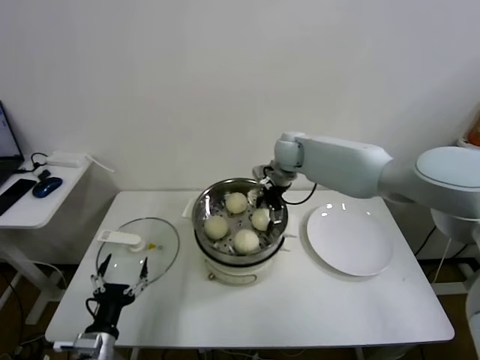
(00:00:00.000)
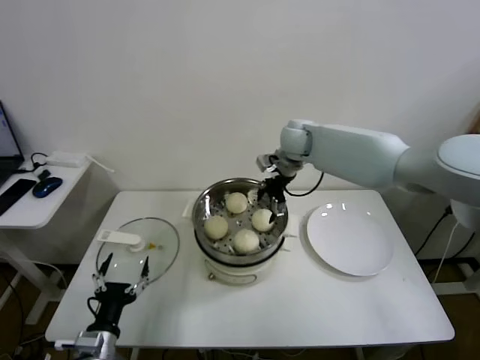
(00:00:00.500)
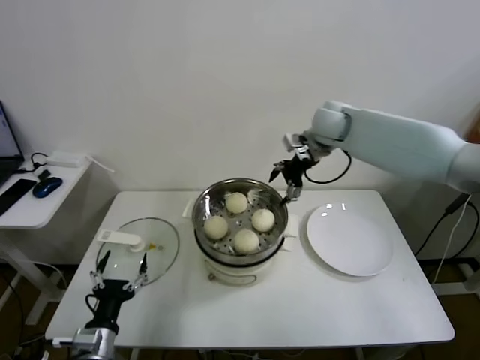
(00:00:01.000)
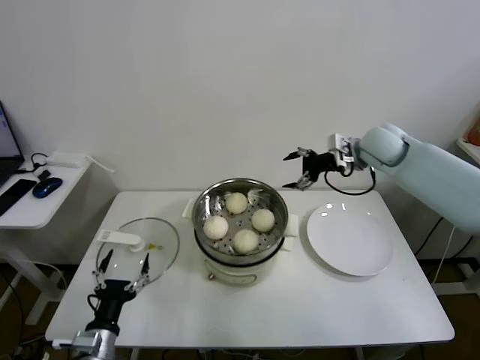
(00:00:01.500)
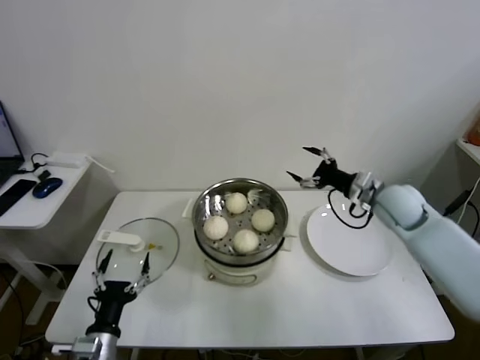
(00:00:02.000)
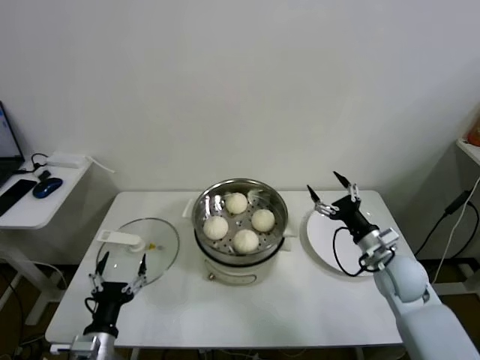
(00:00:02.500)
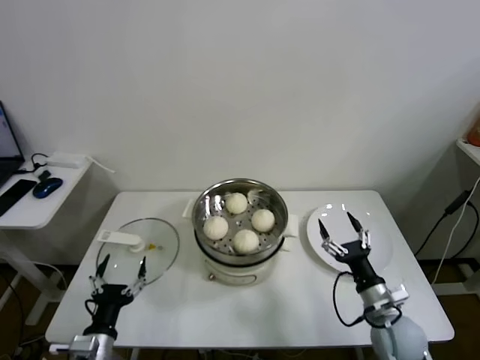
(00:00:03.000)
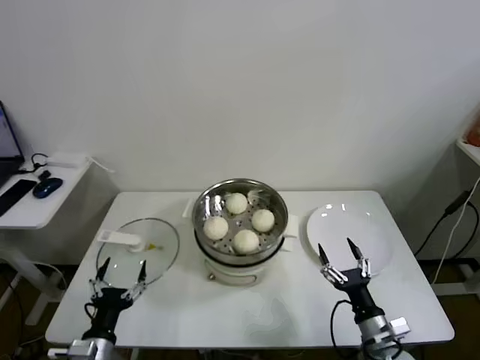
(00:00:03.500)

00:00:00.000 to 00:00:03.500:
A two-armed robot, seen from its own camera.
Task of the whole recording: take steamed baozi put them in steamer.
00:00:00.000 to 00:00:02.000: The right gripper travels to the right and backward by approximately 25 cm.
00:00:02.000 to 00:00:03.500: The right gripper travels backward and downward by roughly 35 cm.

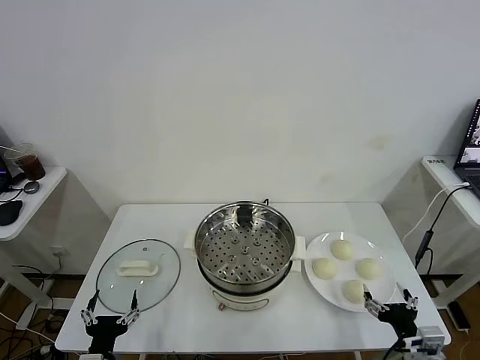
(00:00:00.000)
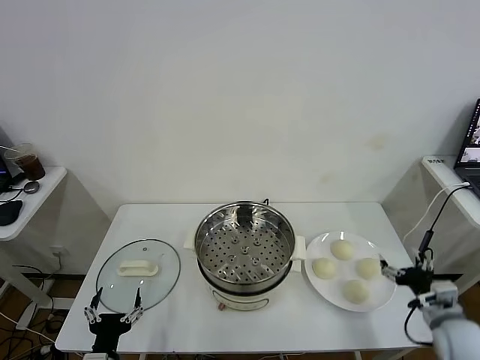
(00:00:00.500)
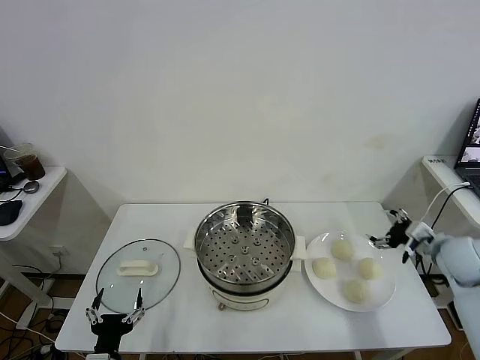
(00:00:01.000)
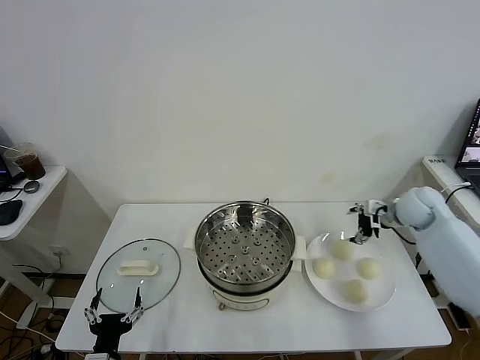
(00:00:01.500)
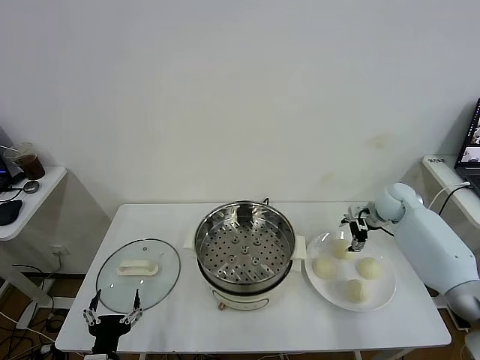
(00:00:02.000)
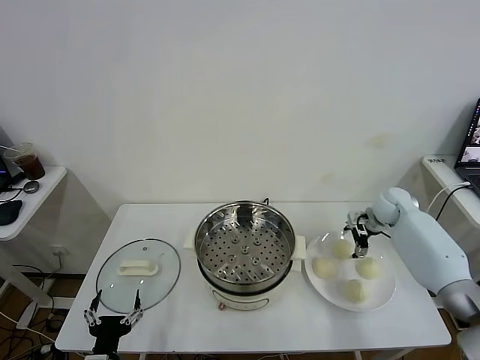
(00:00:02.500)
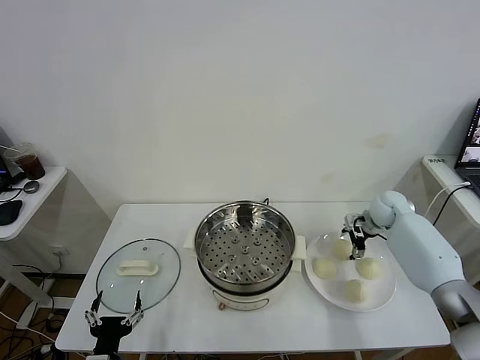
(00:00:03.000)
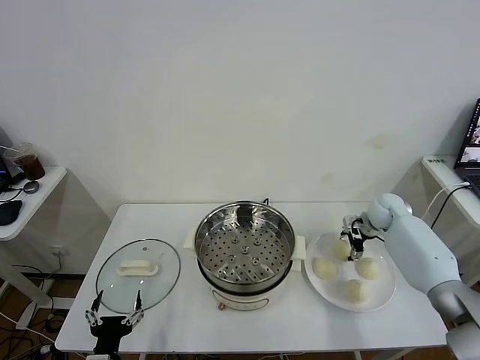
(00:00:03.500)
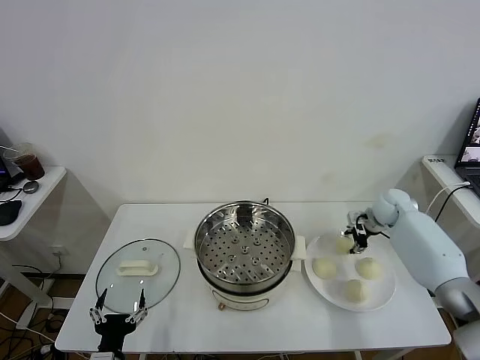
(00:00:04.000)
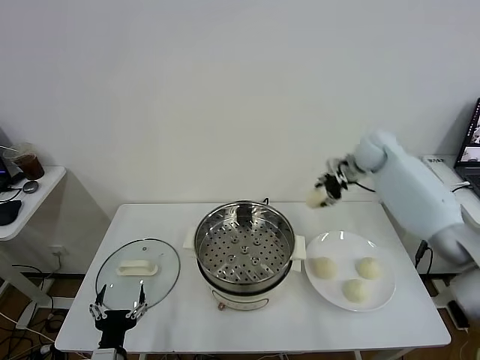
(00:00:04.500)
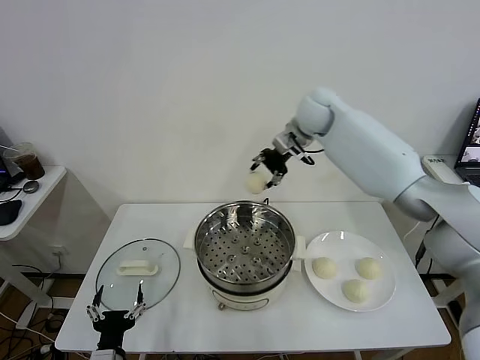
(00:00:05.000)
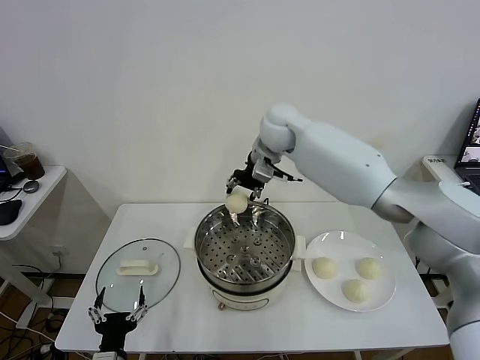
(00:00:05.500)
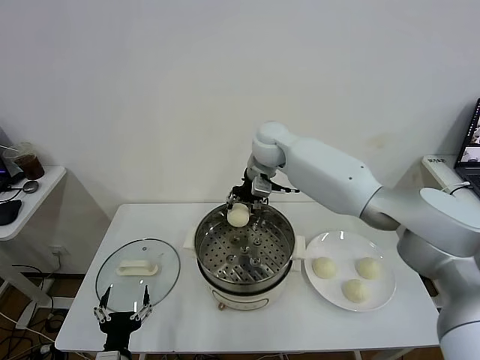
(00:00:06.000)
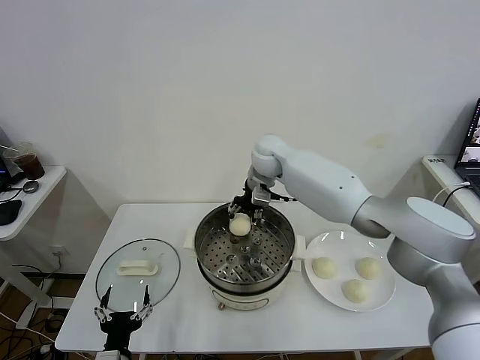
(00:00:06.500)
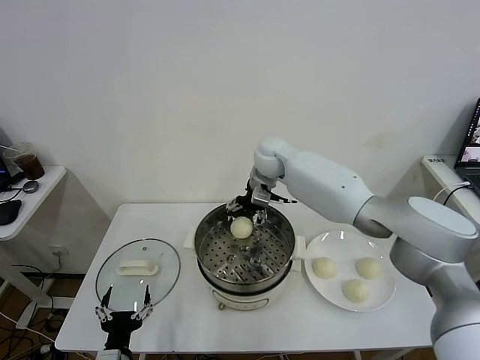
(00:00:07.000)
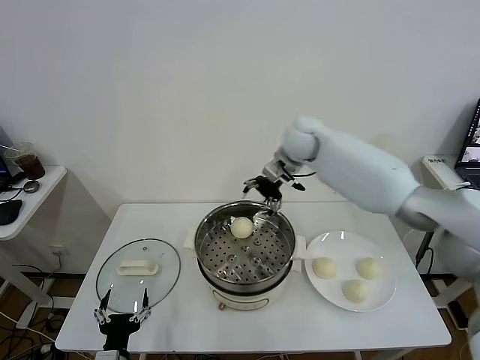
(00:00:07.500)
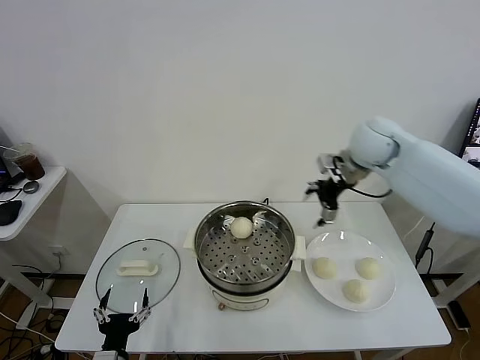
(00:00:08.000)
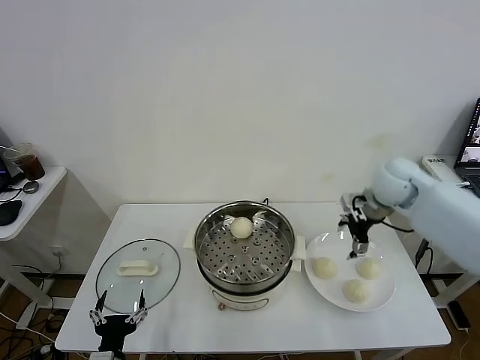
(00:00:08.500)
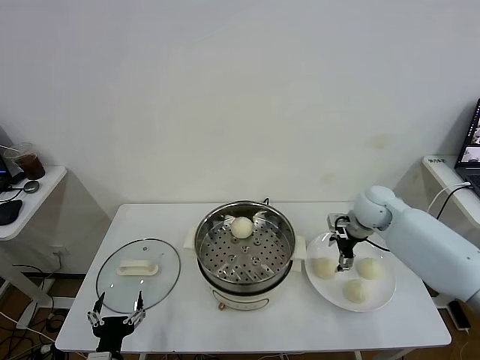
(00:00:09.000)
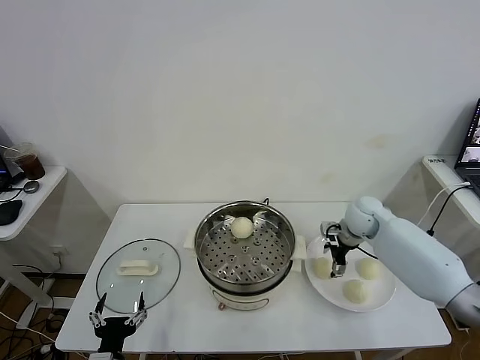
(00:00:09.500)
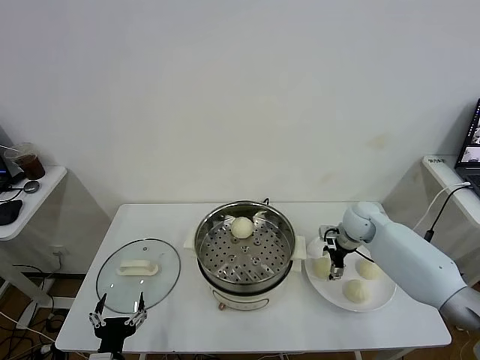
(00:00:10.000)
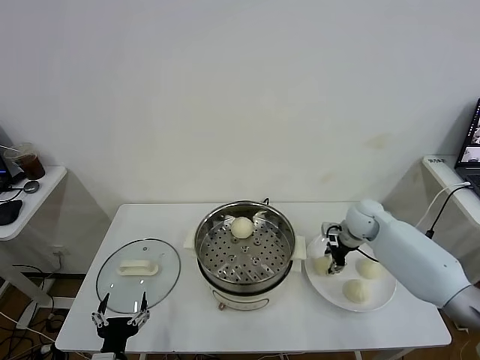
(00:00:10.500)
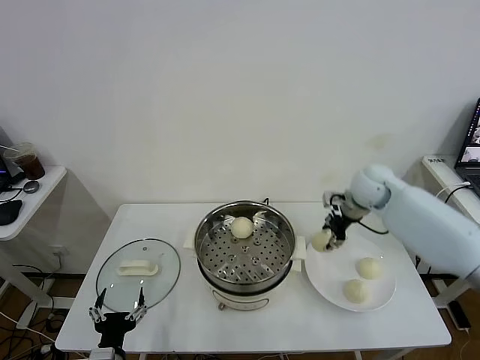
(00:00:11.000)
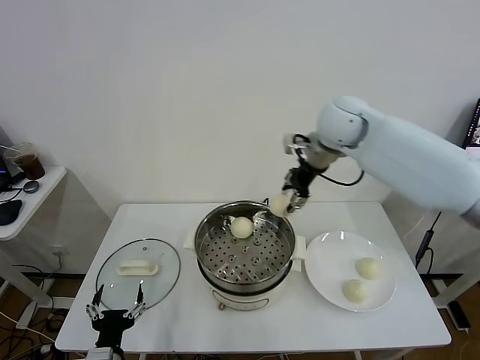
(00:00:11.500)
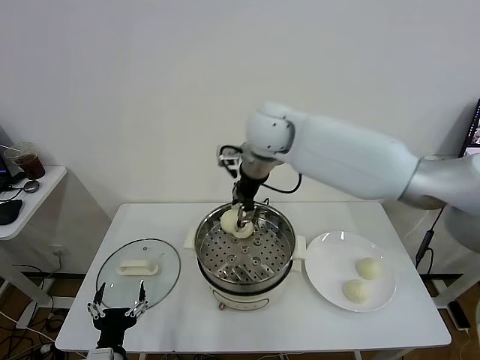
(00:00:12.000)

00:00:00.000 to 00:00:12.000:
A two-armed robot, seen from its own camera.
Task of the whole recording: take steamed baozi put them in steamer.
Step, 00:00:00.000 to 00:00:03.500: Grasp the baozi in the plate with right gripper.
Step, 00:00:04.000 to 00:00:07.000: Place the baozi on the steamer with right gripper.
Step, 00:00:07.500 to 00:00:10.000: Grasp the baozi in the plate with right gripper.
00:00:02.000 to 00:00:04.000: The right gripper closes its fingers.
00:00:04.000 to 00:00:06.000: The right gripper is displaced to the left and upward by approximately 35 cm.
00:00:06.000 to 00:00:08.000: The right gripper is displaced to the right by about 25 cm, and opens its fingers.
00:00:08.000 to 00:00:10.000: The right gripper moves downward, about 20 cm.
00:00:10.000 to 00:00:12.000: The right gripper moves to the left and upward, approximately 35 cm, and closes up.

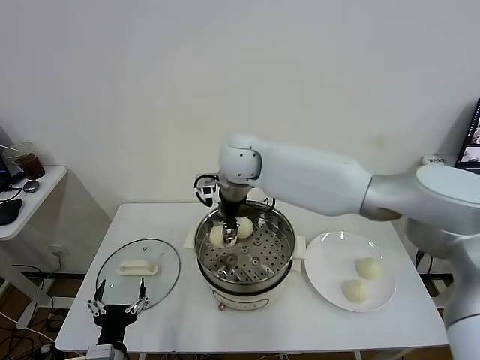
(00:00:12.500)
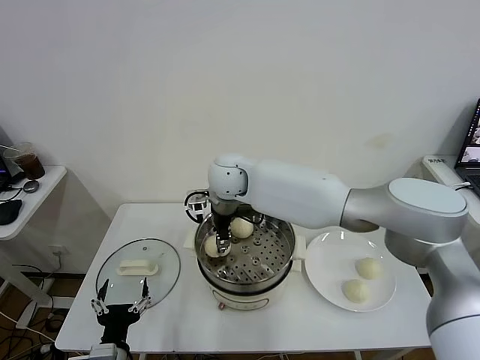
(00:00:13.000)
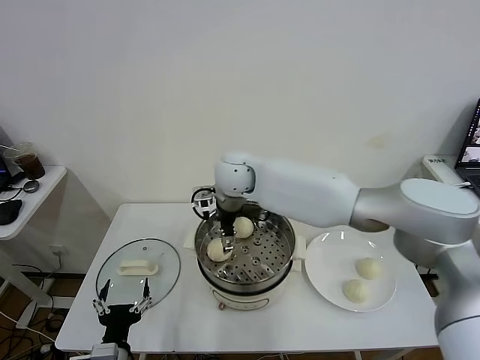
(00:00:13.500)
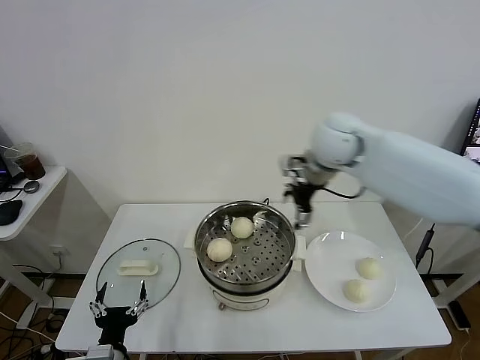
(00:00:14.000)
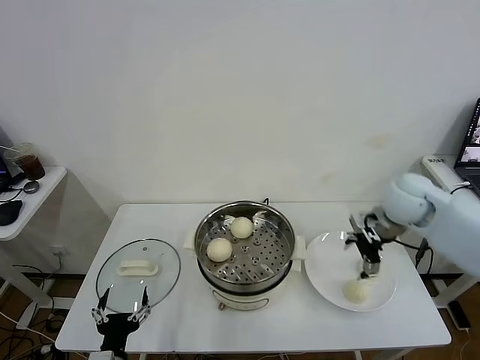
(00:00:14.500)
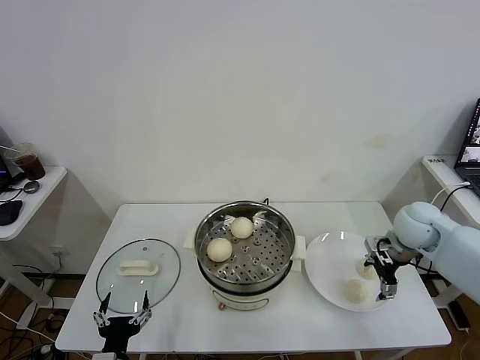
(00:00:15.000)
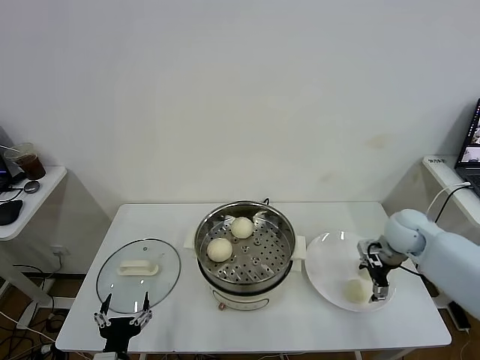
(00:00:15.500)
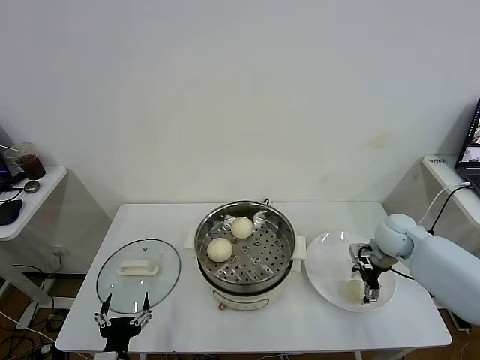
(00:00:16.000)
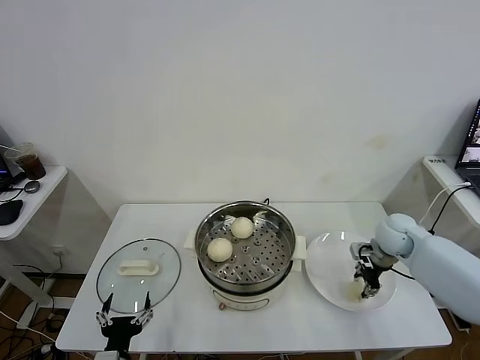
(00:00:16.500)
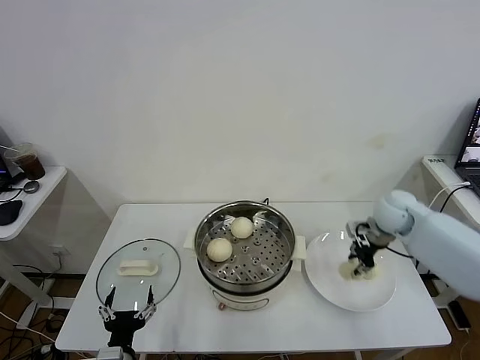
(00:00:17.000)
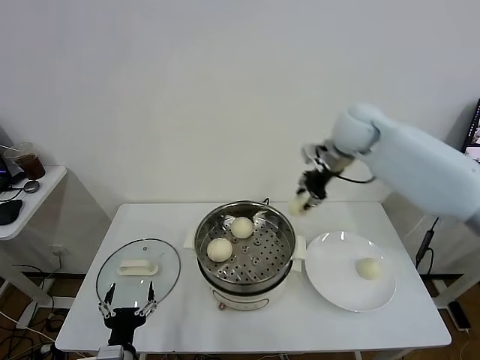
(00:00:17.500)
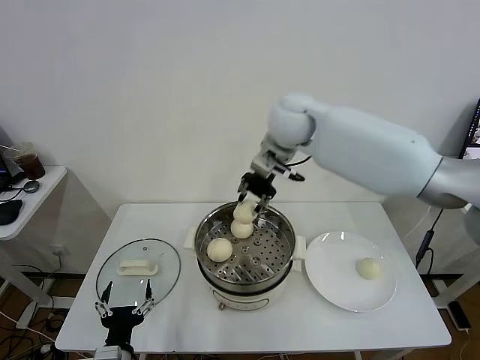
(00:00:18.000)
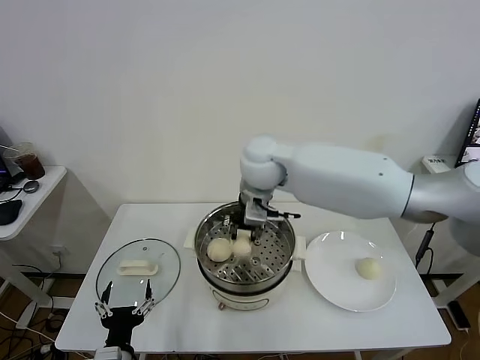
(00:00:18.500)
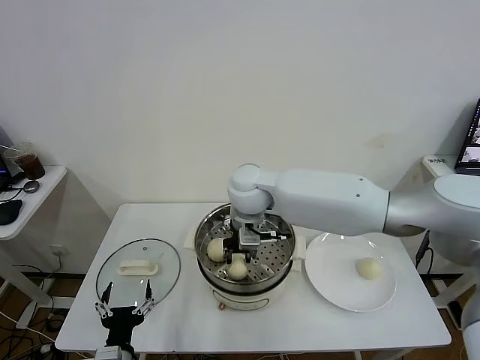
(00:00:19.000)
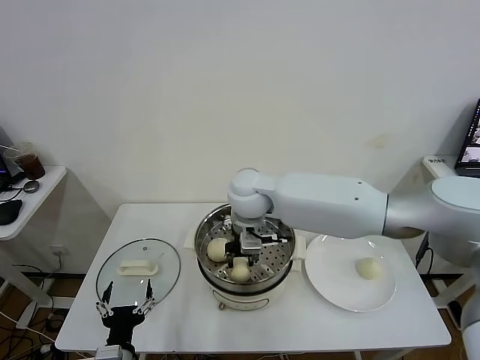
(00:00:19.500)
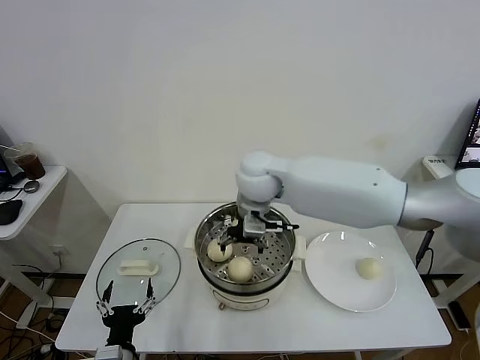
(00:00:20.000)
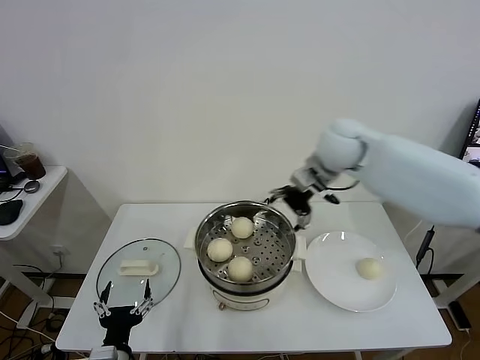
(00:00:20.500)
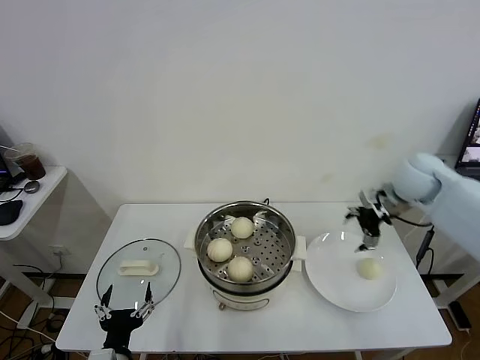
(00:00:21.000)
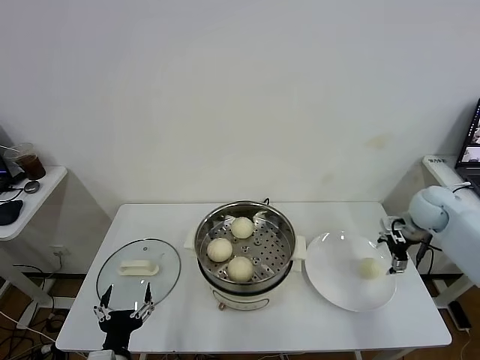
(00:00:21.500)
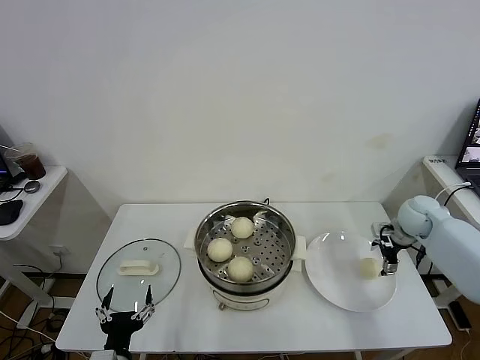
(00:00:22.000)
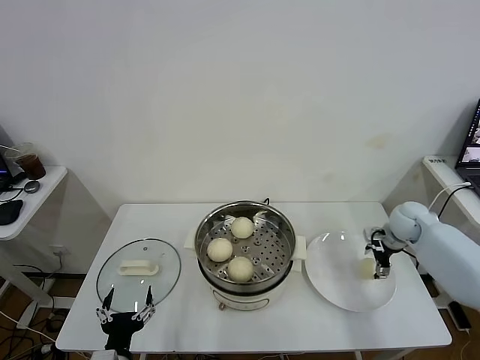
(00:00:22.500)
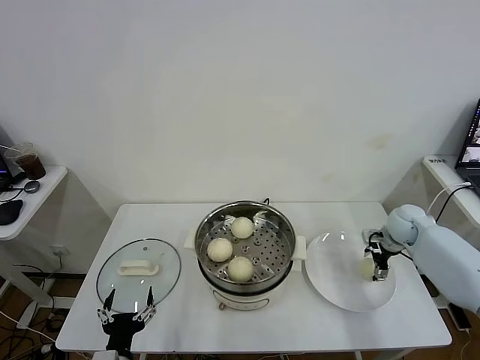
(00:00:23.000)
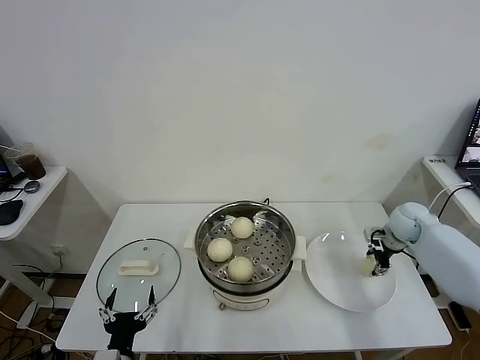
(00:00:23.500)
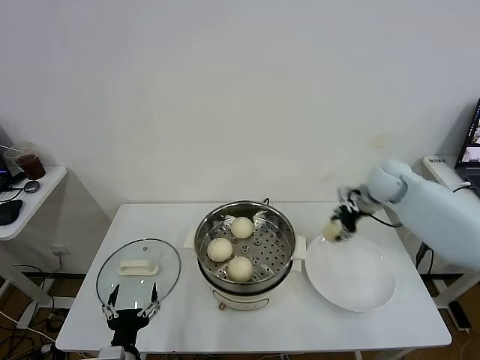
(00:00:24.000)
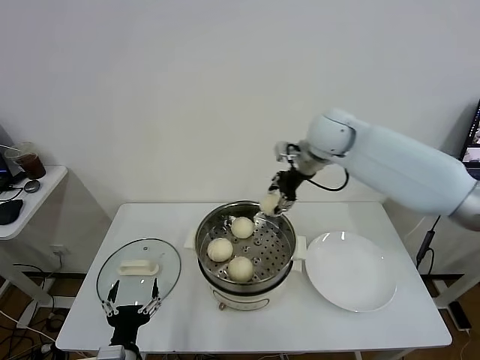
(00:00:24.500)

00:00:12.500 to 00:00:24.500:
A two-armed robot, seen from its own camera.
Task of the whole recording: take steamed baozi put them in steamer.
Step, 00:00:13.500 to 00:00:16.500: Grasp the baozi in the plate with right gripper.
Step, 00:00:17.000 to 00:00:19.500: Place the baozi on the steamer with right gripper.
Step, 00:00:20.000 to 00:00:23.000: Grasp the baozi in the plate with right gripper.
00:00:12.500 to 00:00:14.500: The right gripper goes roughly 35 cm to the right, and opens up.
00:00:14.500 to 00:00:16.500: The right gripper heads downward, covering approximately 10 cm, and closes its fingers.
00:00:16.500 to 00:00:18.500: The right gripper moves to the left and upward, about 40 cm.
00:00:18.500 to 00:00:20.500: The right gripper heads to the right, covering roughly 20 cm, and opens.
00:00:20.500 to 00:00:22.500: The right gripper moves downward and to the right, approximately 30 cm.
00:00:22.500 to 00:00:24.500: The right gripper goes roughly 35 cm to the left and upward, and closes its fingers.
